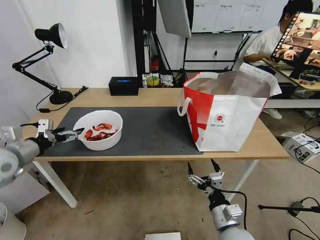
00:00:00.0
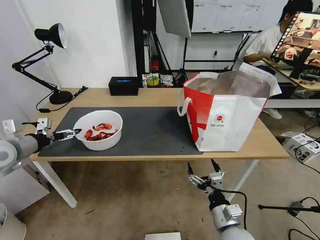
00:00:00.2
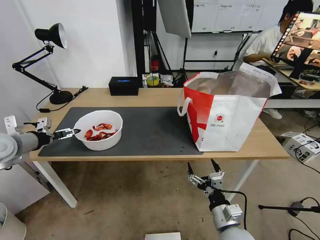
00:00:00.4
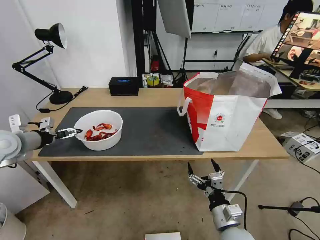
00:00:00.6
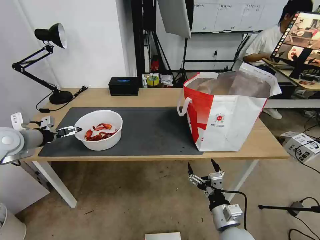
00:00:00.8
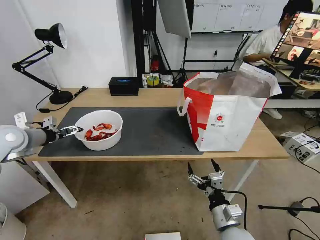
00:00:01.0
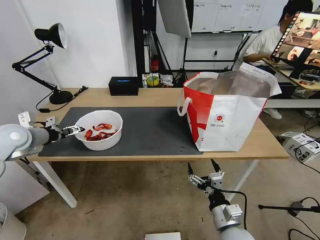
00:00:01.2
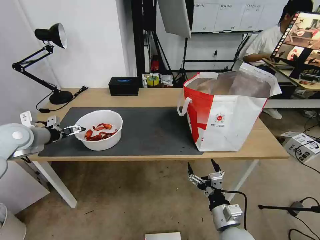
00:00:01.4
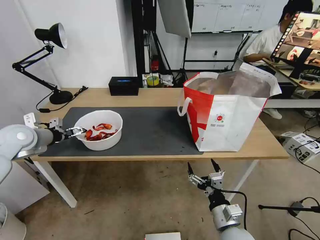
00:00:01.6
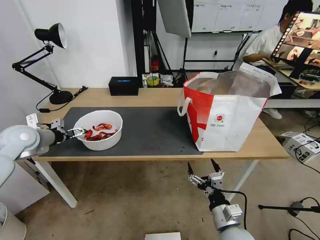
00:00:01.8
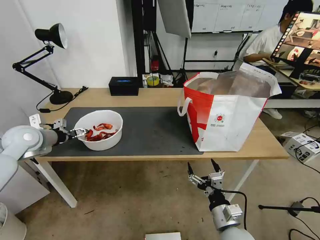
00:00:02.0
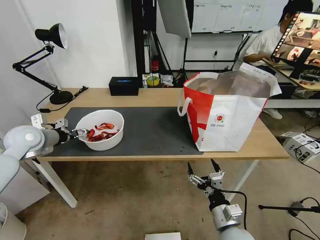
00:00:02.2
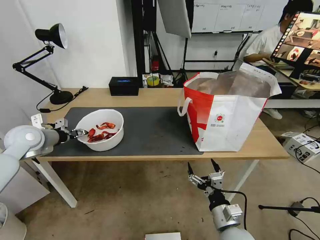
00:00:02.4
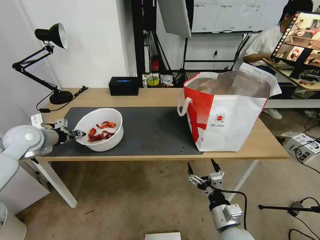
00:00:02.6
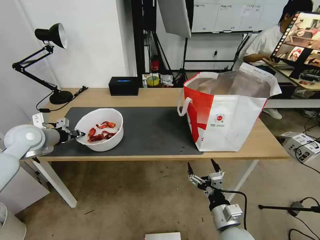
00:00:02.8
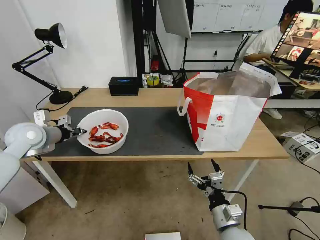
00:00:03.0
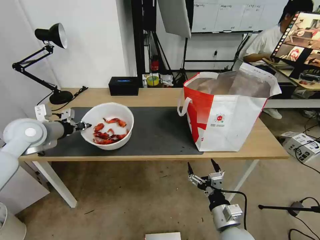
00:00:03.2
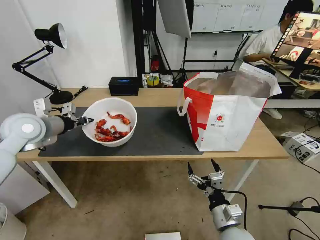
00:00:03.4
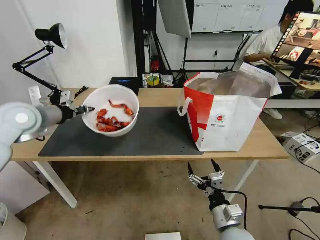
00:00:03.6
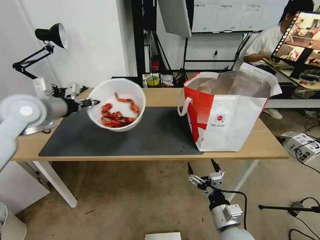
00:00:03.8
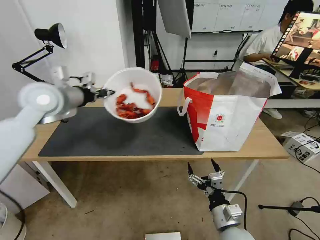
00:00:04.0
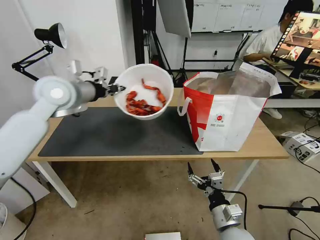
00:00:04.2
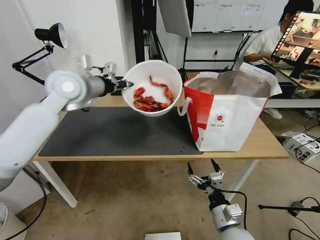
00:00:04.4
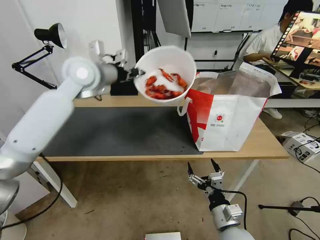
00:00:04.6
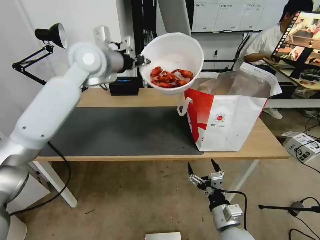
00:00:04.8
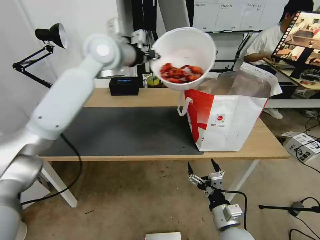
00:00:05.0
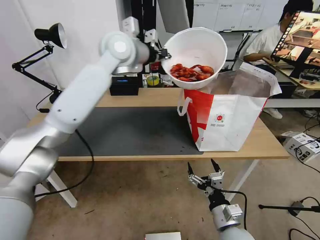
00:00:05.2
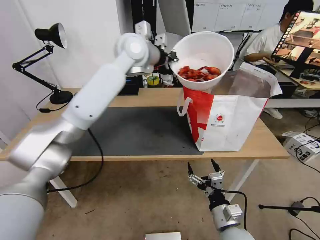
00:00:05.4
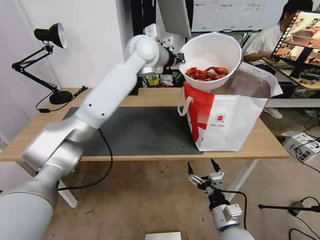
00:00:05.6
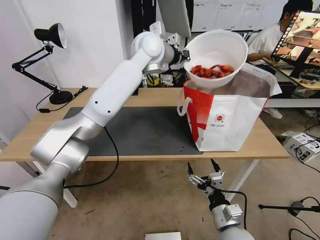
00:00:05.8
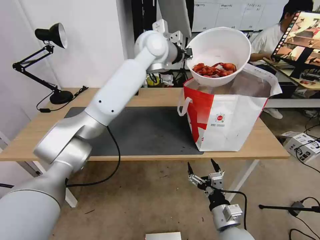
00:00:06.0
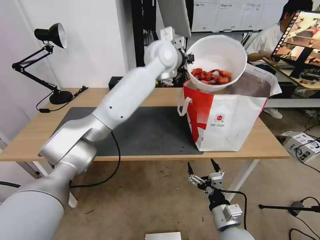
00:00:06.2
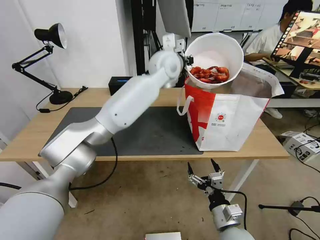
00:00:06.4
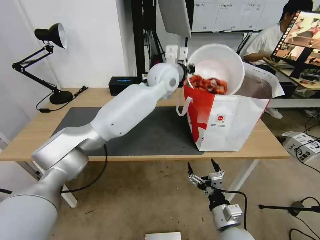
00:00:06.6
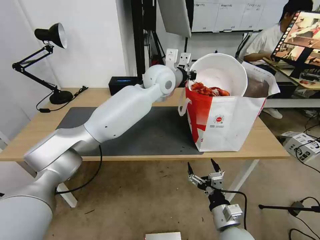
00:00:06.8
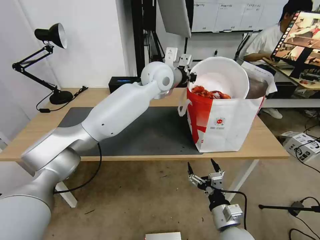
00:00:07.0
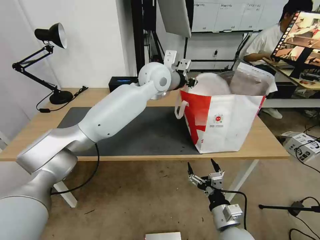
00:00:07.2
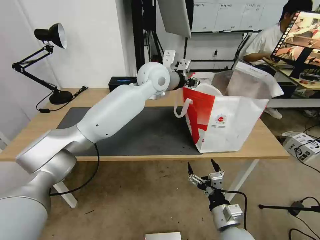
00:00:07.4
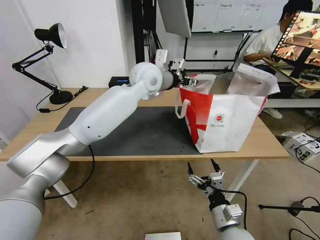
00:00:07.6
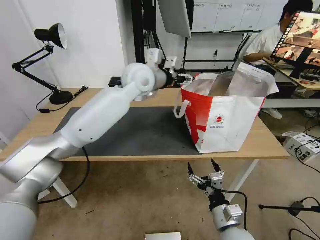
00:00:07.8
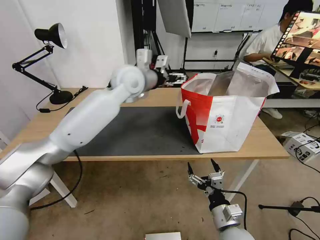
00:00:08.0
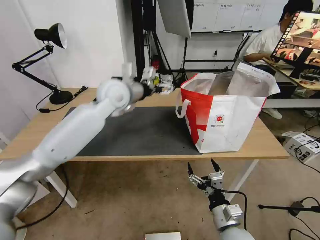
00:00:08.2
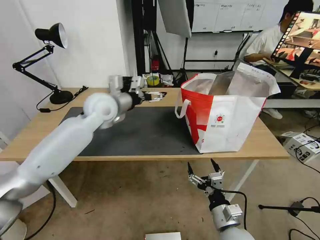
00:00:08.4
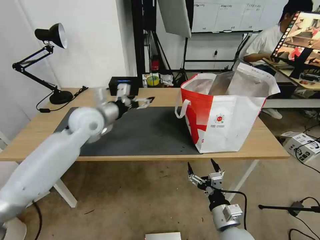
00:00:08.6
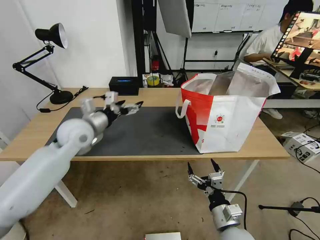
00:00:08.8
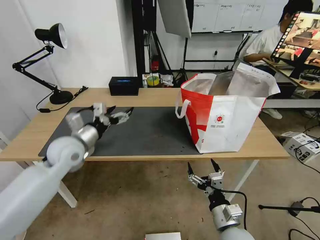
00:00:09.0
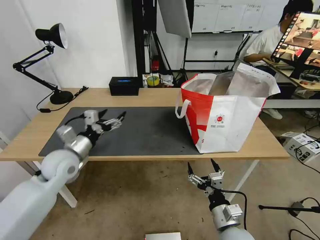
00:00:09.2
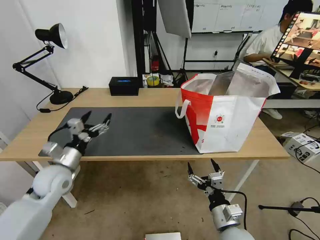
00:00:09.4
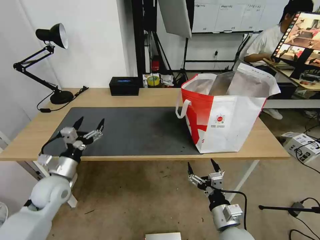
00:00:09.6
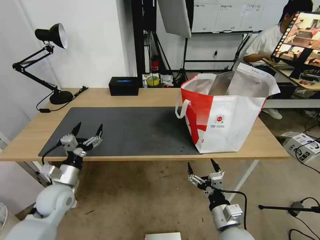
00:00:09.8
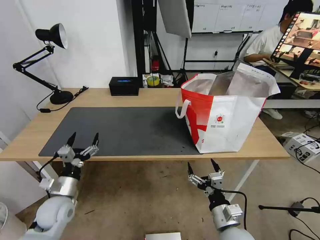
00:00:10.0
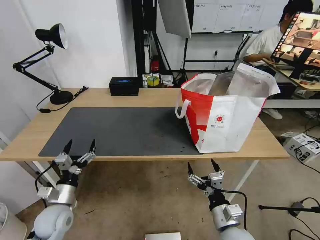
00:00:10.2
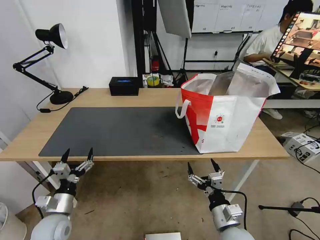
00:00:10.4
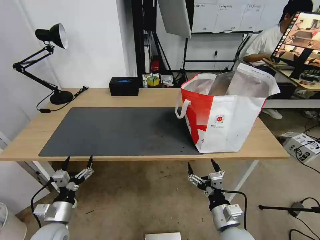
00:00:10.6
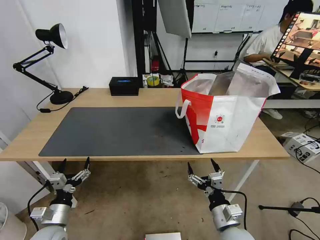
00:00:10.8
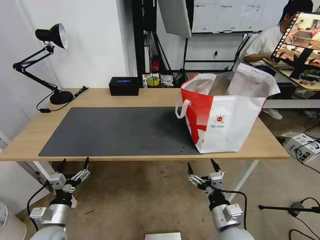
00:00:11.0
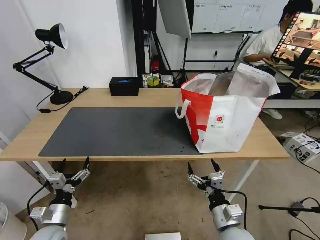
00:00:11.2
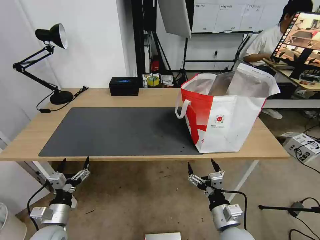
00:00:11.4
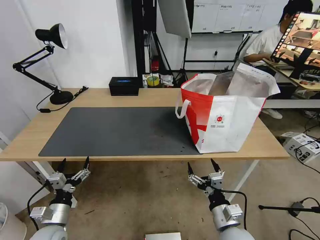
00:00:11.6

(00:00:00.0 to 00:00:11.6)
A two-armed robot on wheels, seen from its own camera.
Task of the whole recording: Pick up the trash from the table and place it into the takeout bag.
00:00:00.0 - 00:00:01.4: The left gripper heads forward, covering some 10 cm.
00:00:01.4 - 00:00:02.8: The left gripper closes up.
00:00:02.8 - 00:00:04.4: The left gripper heads to the right and upward, covering about 25 cm.
00:00:04.4 - 00:00:05.8: The left gripper is displaced to the right and forward by approximately 20 cm.
00:00:05.8 - 00:00:07.2: The left gripper heads downward, covering roughly 5 cm.
00:00:07.2 - 00:00:08.8: The left gripper moves to the left, downward and backward, some 30 cm, and opens its fingers.
00:00:08.8 - 00:00:10.2: The left gripper moves downward and backward, some 25 cm.
00:00:10.2 - 00:00:11.6: The left gripper moves backward, roughly 5 cm.

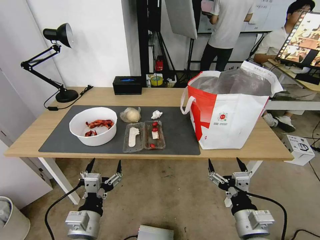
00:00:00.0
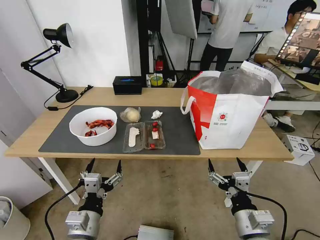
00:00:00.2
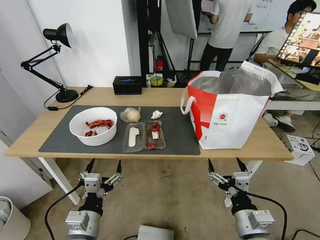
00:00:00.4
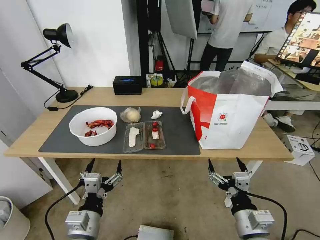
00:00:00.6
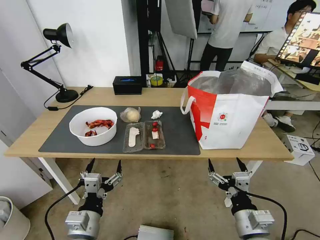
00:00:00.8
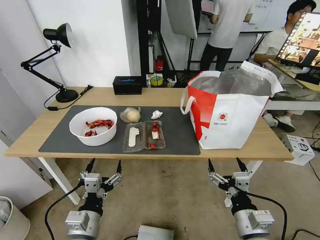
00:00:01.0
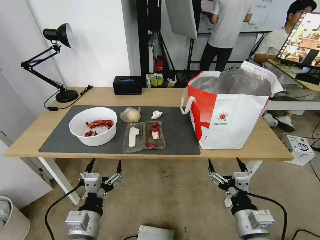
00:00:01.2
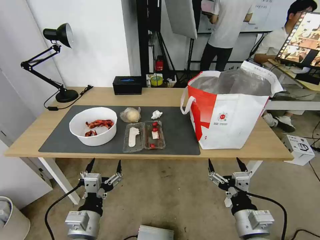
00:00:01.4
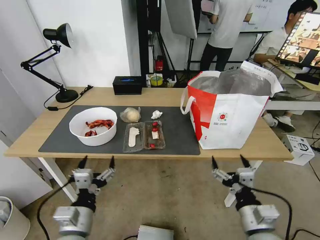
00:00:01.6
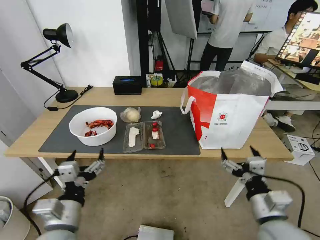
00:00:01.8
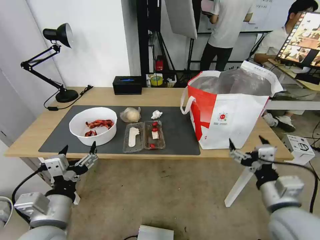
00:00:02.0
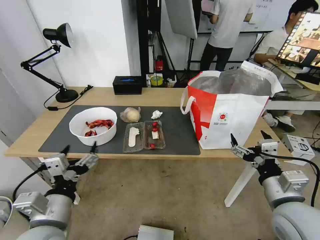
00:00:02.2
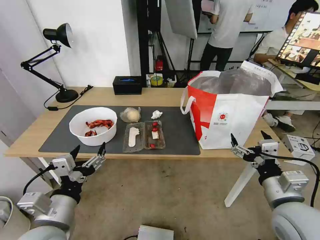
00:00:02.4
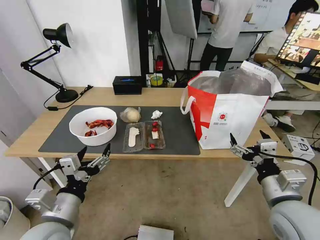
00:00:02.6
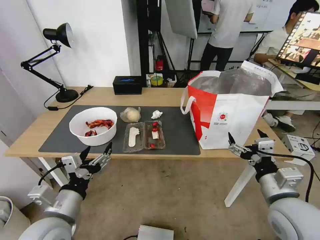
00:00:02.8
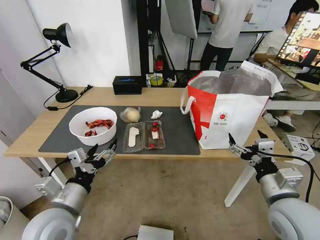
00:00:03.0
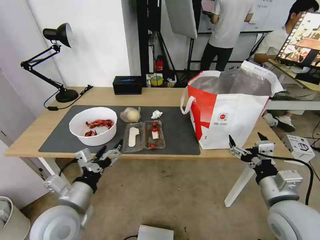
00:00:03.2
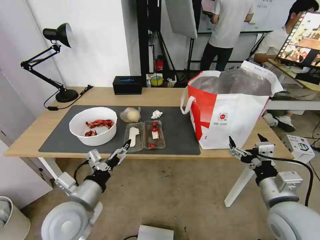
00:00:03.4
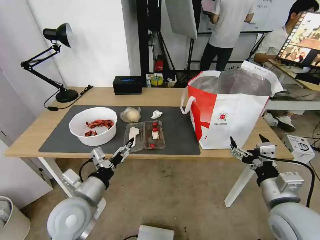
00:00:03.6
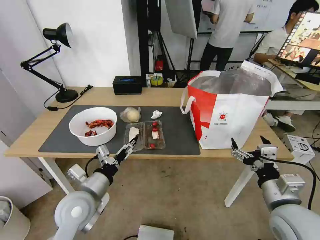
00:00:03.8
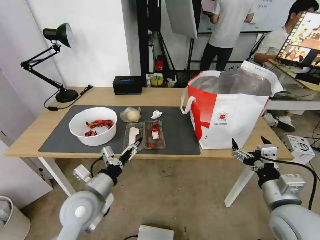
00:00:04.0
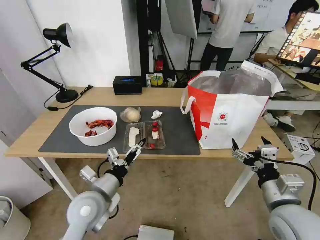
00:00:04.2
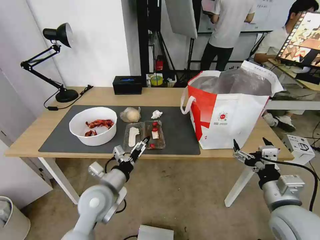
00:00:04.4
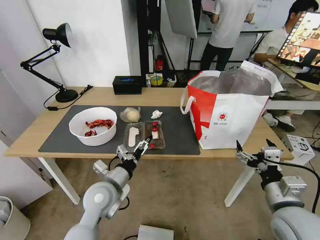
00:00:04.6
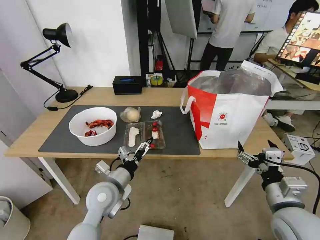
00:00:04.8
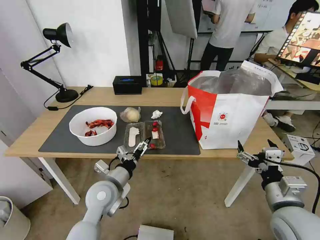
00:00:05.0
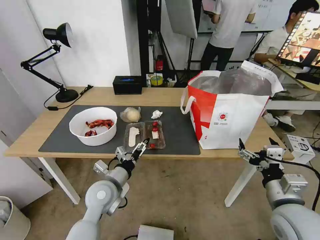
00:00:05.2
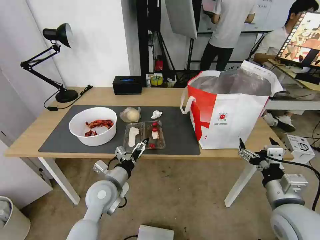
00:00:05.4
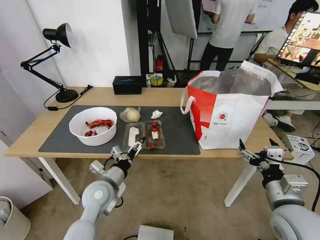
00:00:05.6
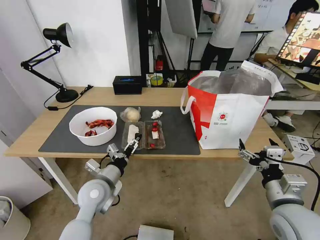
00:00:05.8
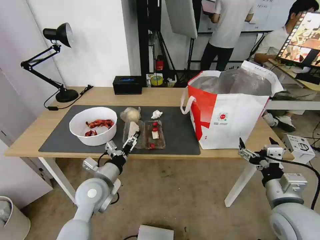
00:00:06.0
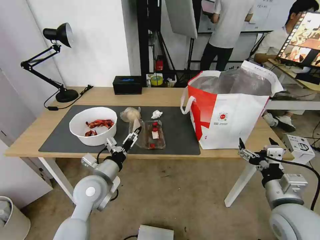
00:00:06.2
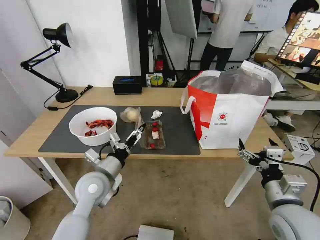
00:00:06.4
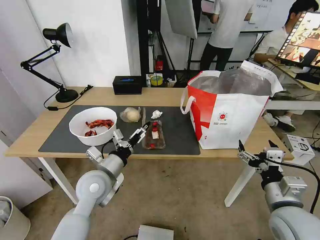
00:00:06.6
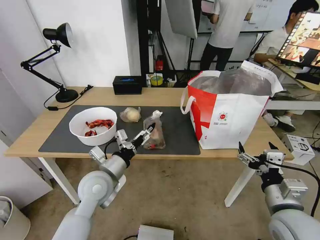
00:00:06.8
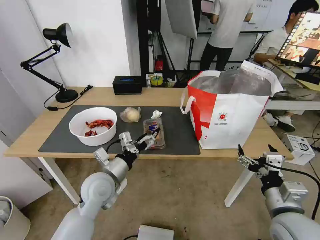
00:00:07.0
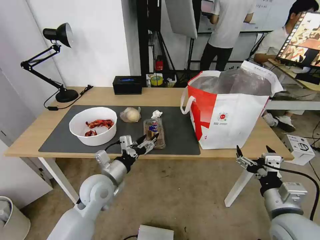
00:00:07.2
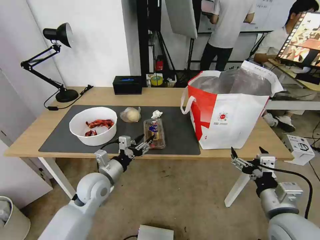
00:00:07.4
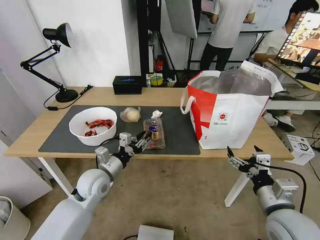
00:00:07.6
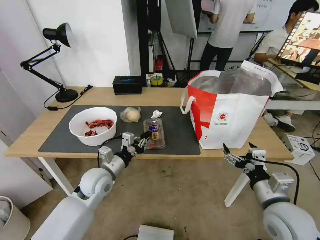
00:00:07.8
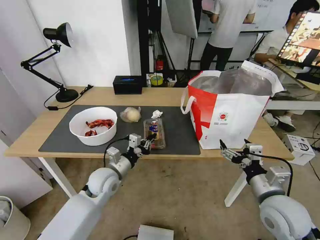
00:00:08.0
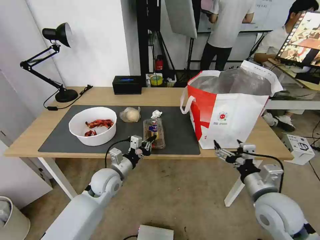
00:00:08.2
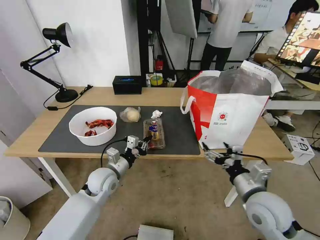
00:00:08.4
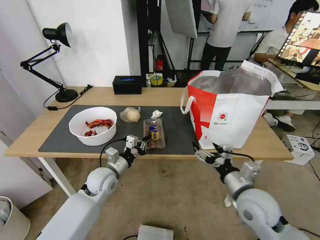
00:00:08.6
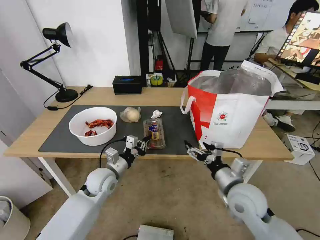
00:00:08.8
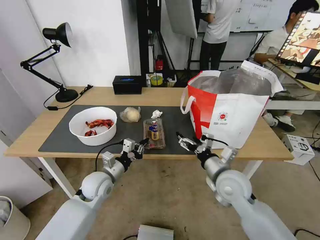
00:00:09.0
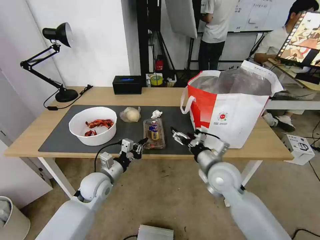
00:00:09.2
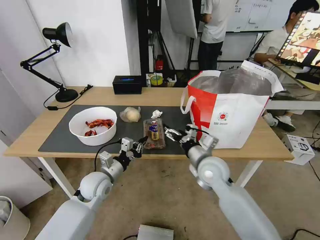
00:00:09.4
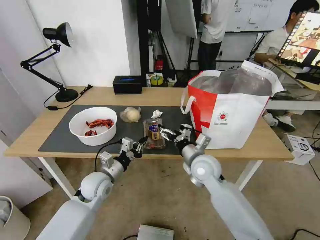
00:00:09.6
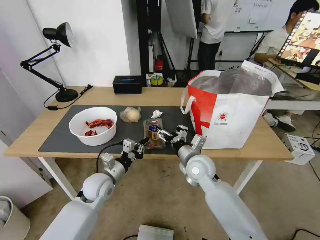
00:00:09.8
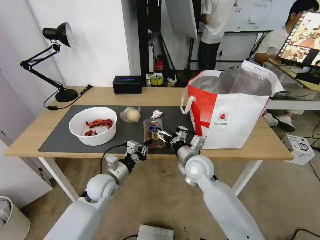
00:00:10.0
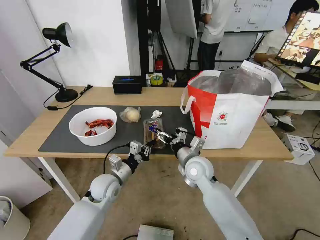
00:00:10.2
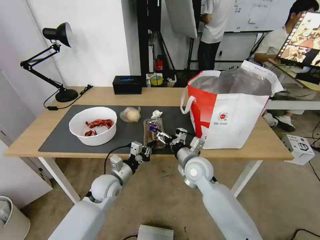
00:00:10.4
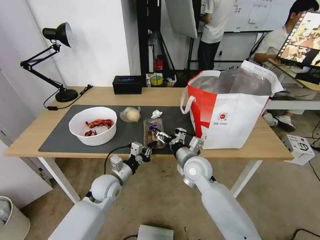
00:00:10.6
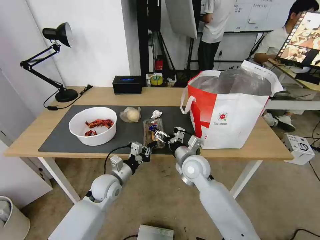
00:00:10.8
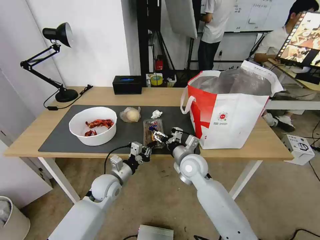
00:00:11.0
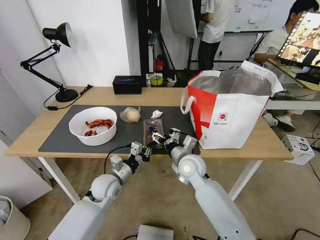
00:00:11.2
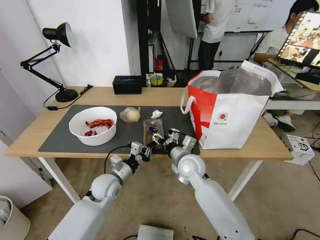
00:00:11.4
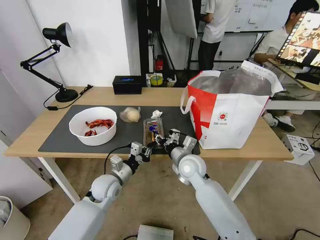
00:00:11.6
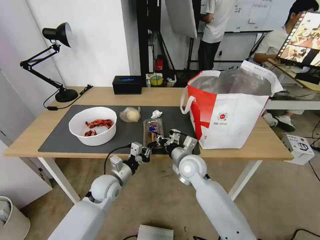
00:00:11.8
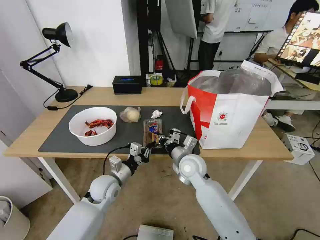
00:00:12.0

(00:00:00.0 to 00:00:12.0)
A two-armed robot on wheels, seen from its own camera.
Task of the whole recording: Pick up the trash from the table and place it into the takeout bag.
00:00:01.6 - 00:00:03.0: The left gripper shifts by some 5 cm, while the right gripper heads upward, forward and to the right, covering approximately 10 cm.
00:00:03.0 - 00:00:04.4: The left gripper goes approximately 10 cm forward and to the right.
00:00:04.4 - 00:00:06.0: The grippers make only small movements.
00:00:06.0 - 00:00:07.6: The left gripper closes up.
00:00:07.6 - 00:00:09.0: The right gripper is displaced forward and to the left by some 10 cm.
00:00:09.0 - 00:00:10.4: The right gripper goes some 15 cm to the left and forward.
00:00:10.4 - 00:00:12.0: The right gripper closes up.
